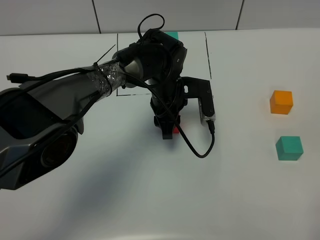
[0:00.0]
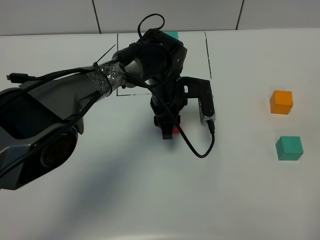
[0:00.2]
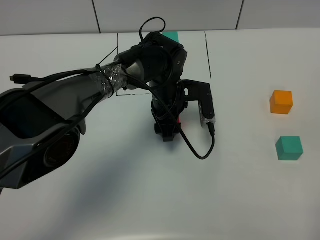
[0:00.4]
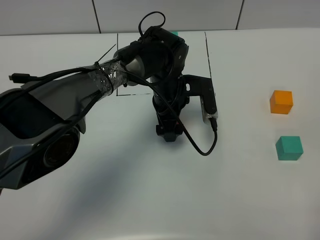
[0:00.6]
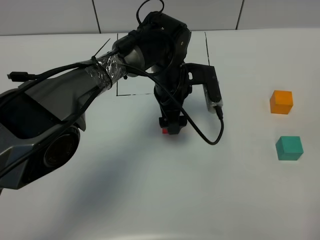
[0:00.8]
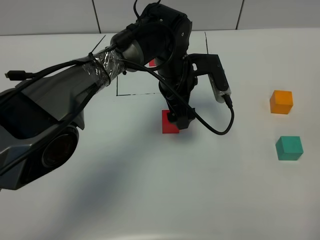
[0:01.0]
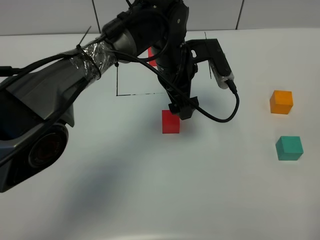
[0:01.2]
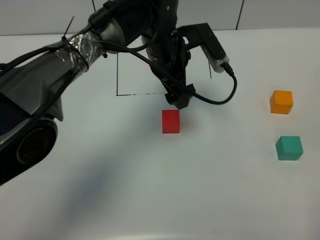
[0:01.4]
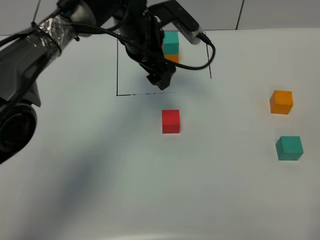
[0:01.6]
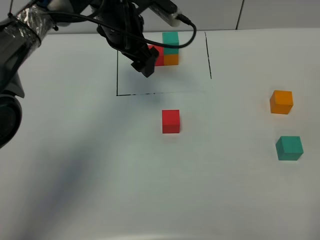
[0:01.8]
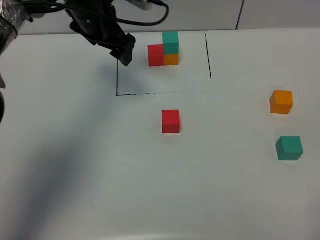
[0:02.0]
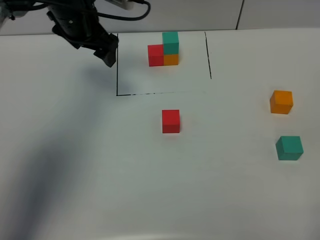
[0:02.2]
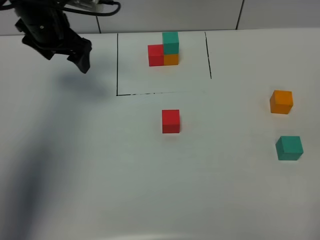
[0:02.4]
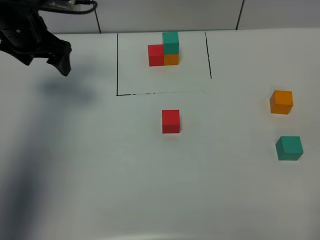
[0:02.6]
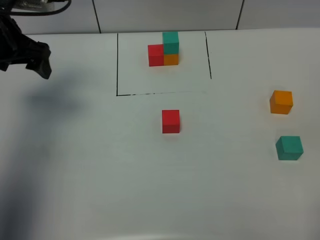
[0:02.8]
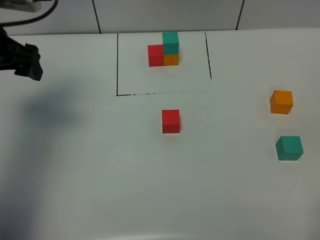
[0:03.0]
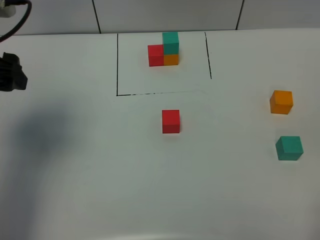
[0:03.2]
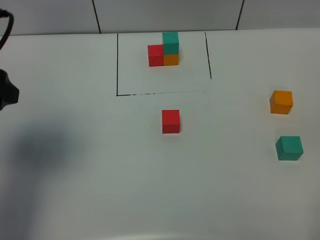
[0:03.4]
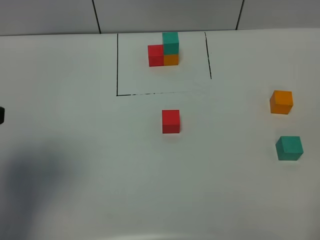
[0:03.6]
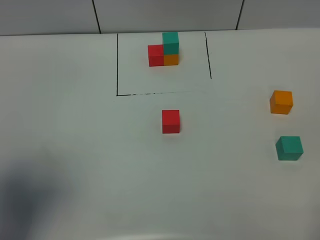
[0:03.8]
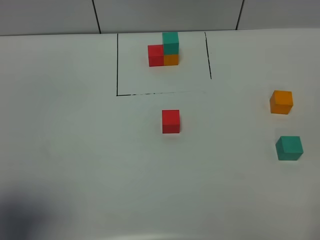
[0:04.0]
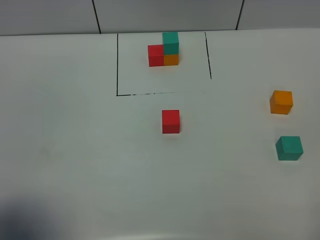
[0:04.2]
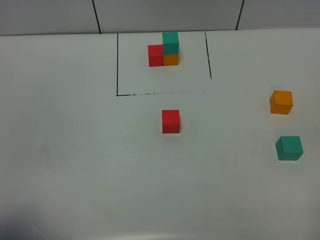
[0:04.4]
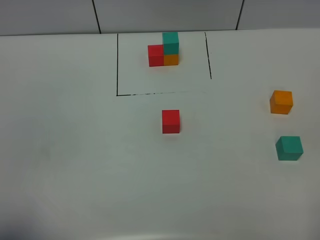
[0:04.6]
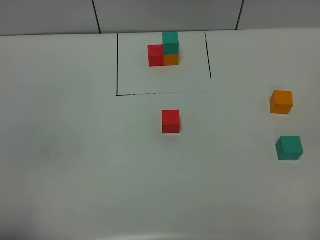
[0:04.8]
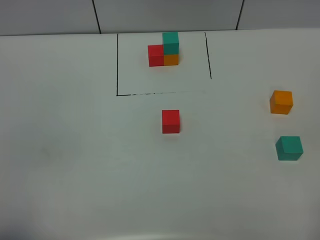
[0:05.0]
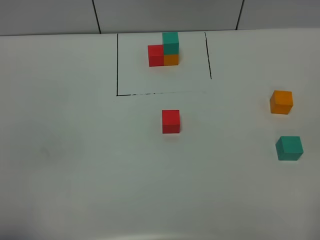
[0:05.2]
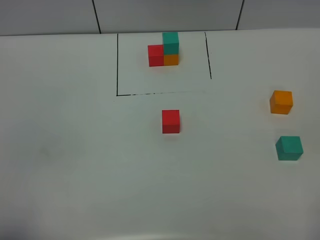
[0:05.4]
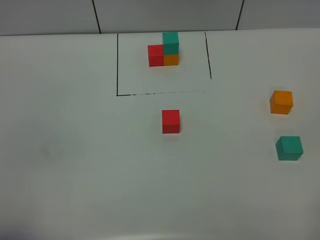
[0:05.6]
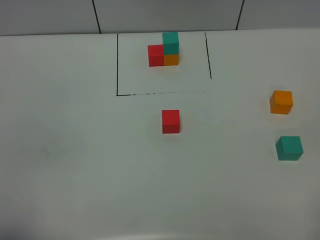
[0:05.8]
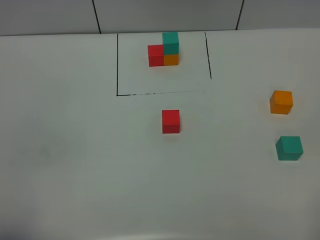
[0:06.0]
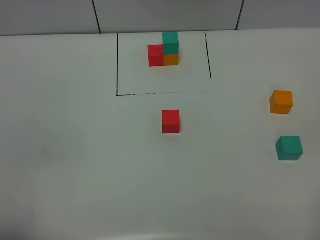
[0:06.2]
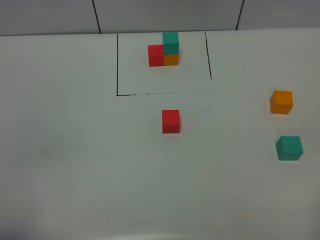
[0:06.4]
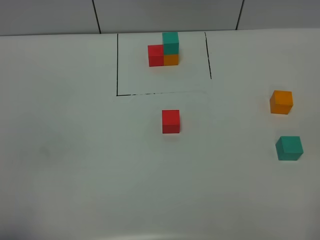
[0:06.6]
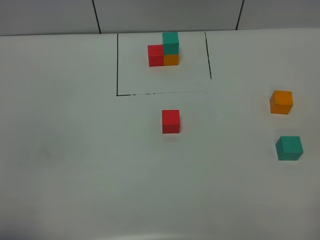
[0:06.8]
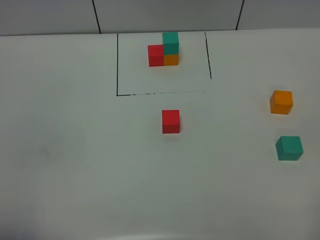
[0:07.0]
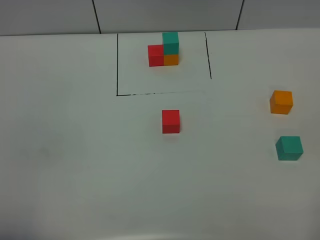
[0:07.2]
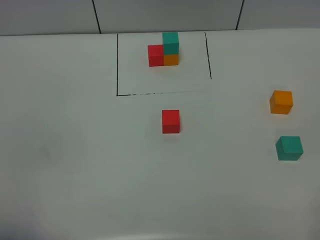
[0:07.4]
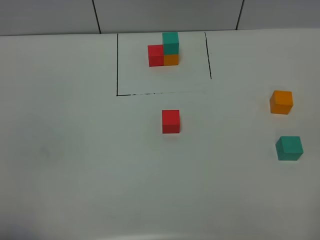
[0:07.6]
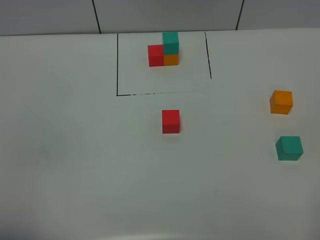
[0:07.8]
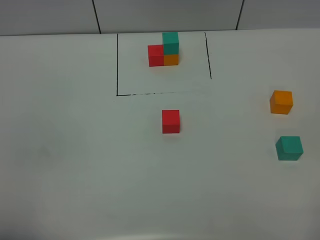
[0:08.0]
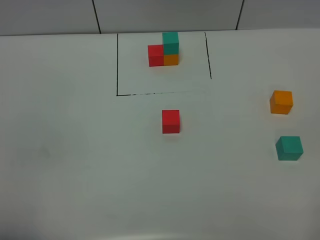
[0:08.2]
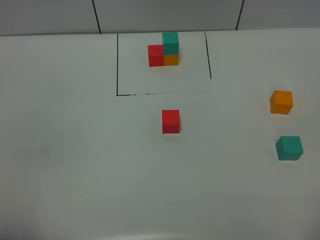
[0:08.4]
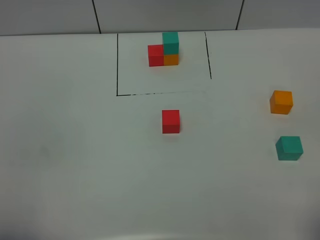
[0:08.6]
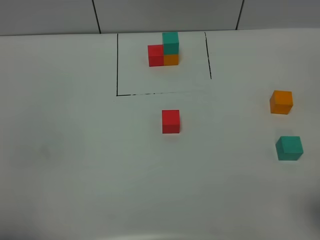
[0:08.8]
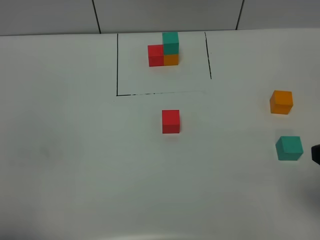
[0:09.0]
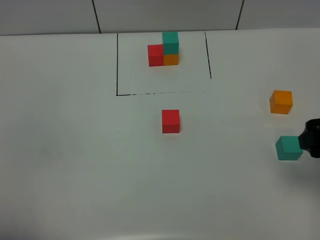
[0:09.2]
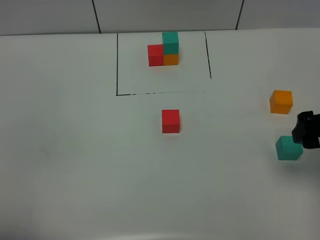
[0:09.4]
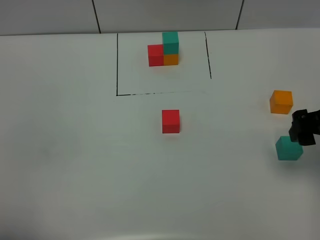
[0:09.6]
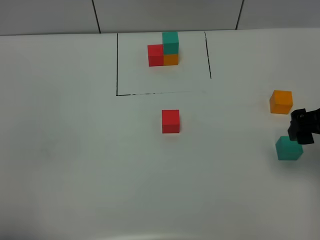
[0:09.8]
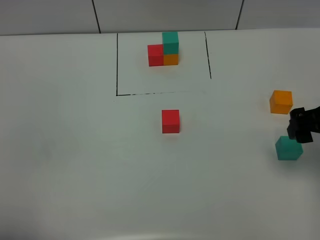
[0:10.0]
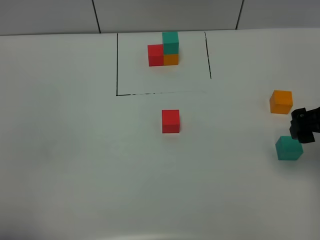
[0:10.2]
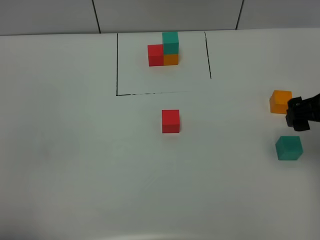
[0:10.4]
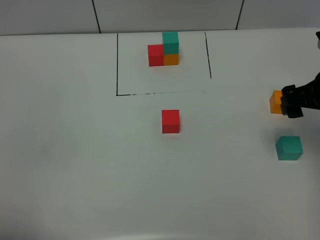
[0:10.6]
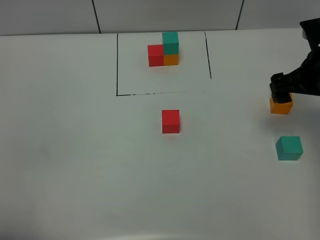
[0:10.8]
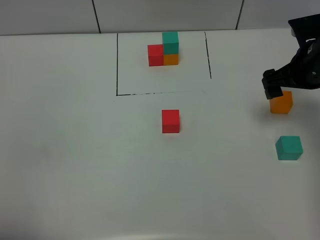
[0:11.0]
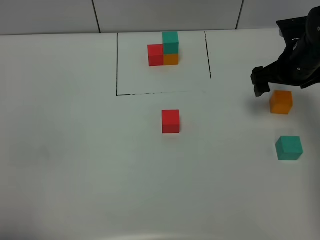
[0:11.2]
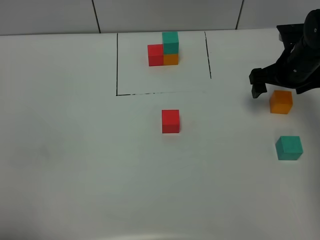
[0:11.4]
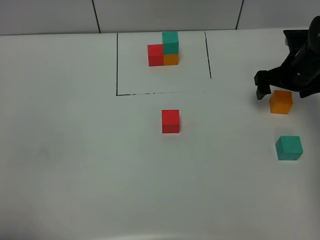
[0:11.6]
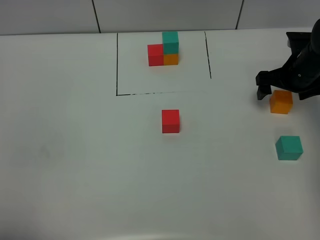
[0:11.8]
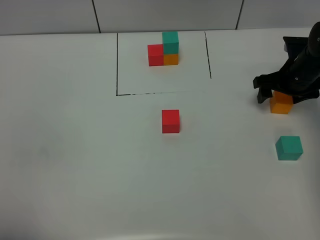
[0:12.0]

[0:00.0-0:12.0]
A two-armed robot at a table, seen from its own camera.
Task of the whole recording: According to the building block template in front, assemble the scattered blocks together.
0:00.0 to 0:01.6: The left gripper shifts roughly 15 cm upward and to the left, and opens its fingers.
0:01.6 to 0:03.0: The left gripper goes roughly 25 cm to the left and backward.
0:03.0 to 0:04.4: The left gripper goes about 30 cm backward.
0:07.6 to 0:09.0: The right gripper heads forward, covering roughly 15 cm.
0:09.0 to 0:10.4: The right gripper heads forward, covering about 10 cm.
0:10.4 to 0:12.0: The right gripper shifts roughly 20 cm forward and downward, and closes.

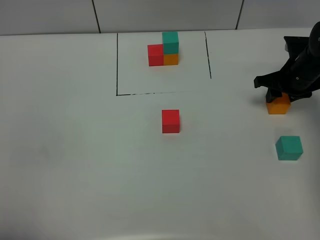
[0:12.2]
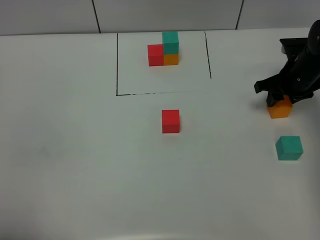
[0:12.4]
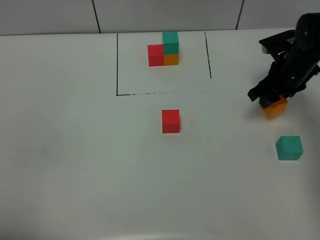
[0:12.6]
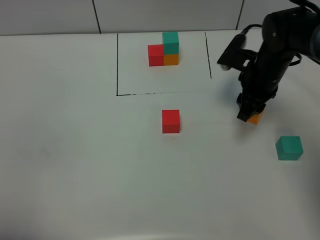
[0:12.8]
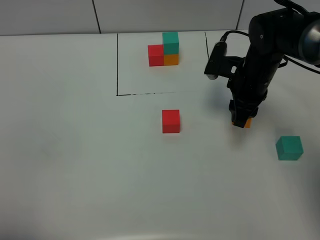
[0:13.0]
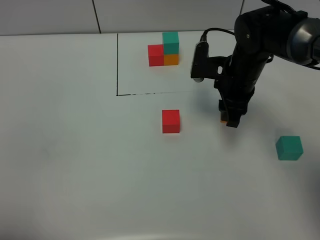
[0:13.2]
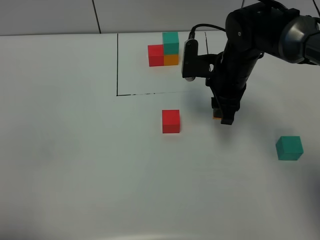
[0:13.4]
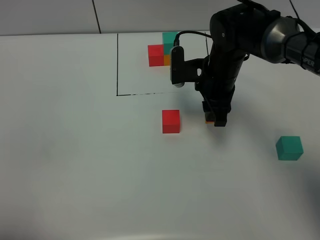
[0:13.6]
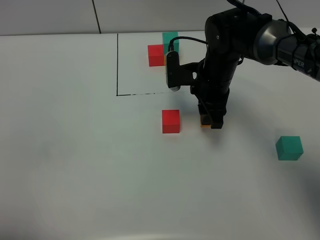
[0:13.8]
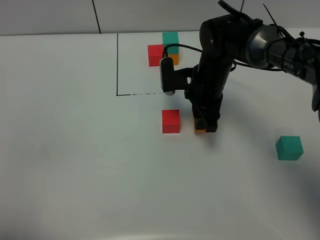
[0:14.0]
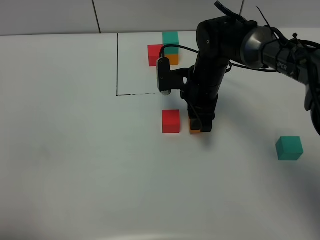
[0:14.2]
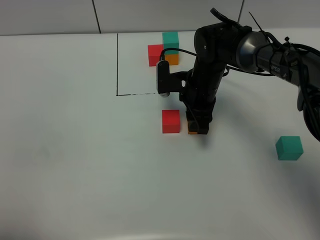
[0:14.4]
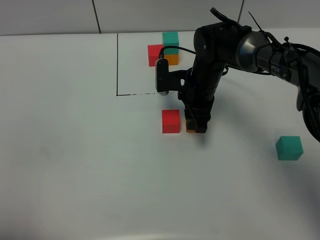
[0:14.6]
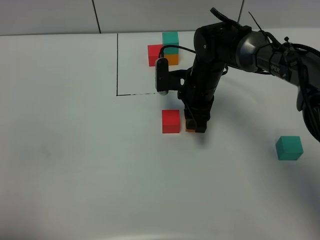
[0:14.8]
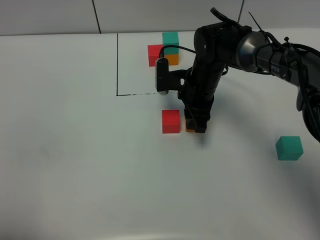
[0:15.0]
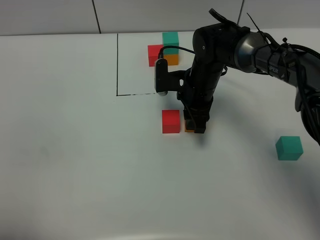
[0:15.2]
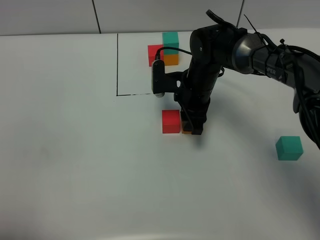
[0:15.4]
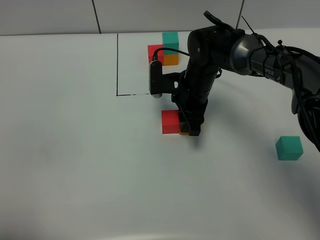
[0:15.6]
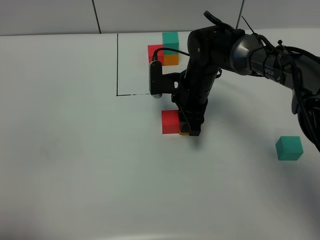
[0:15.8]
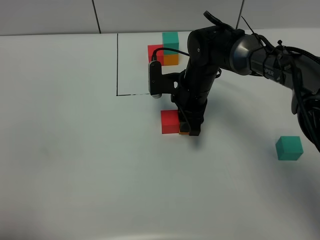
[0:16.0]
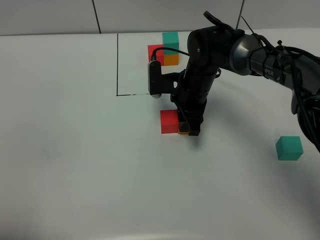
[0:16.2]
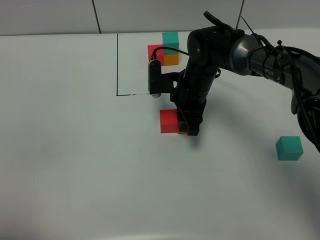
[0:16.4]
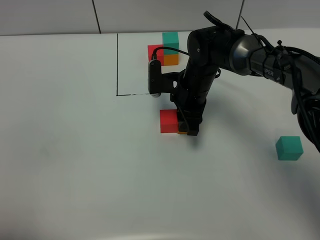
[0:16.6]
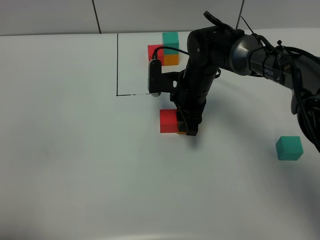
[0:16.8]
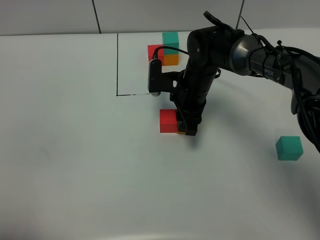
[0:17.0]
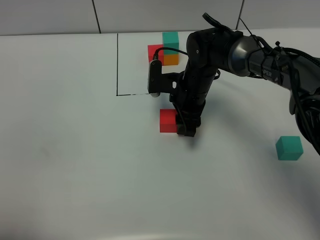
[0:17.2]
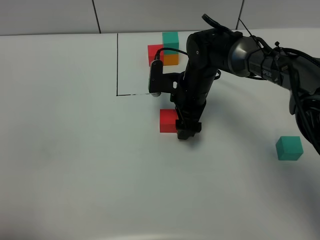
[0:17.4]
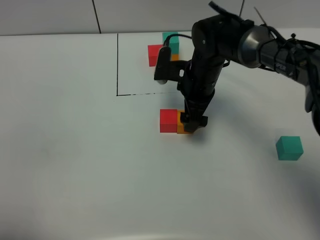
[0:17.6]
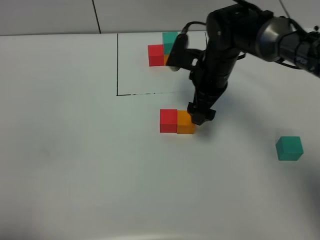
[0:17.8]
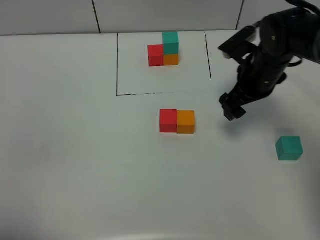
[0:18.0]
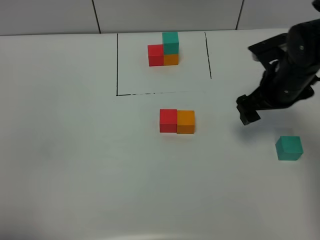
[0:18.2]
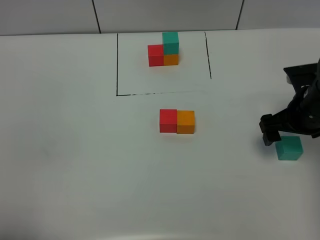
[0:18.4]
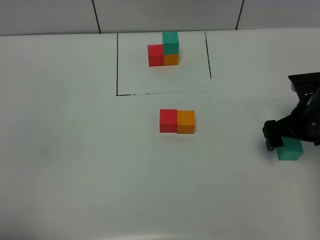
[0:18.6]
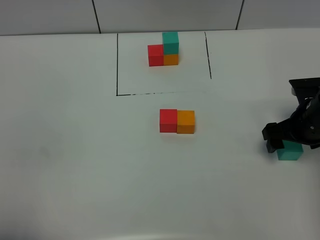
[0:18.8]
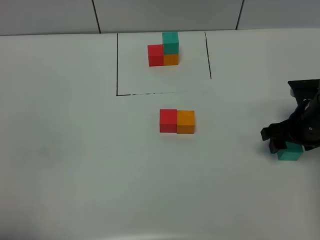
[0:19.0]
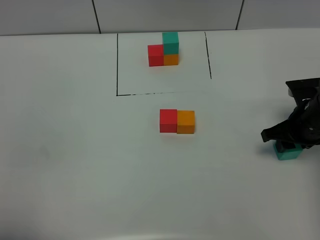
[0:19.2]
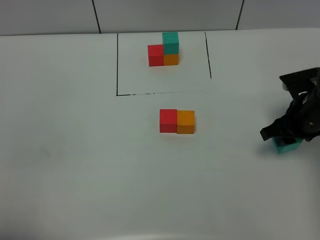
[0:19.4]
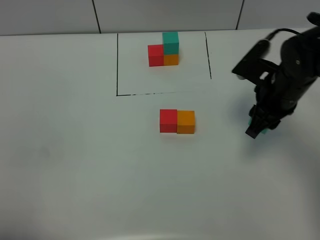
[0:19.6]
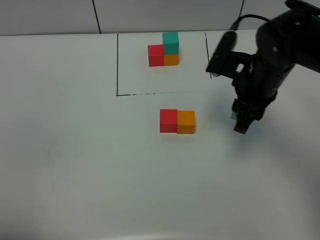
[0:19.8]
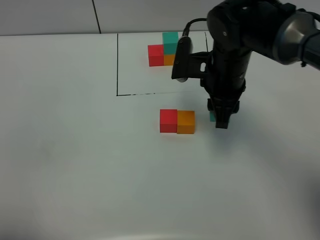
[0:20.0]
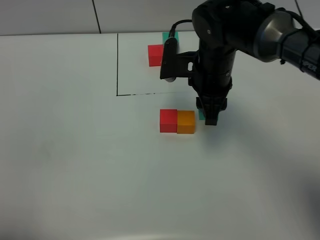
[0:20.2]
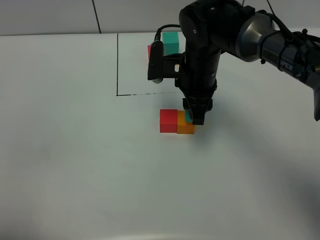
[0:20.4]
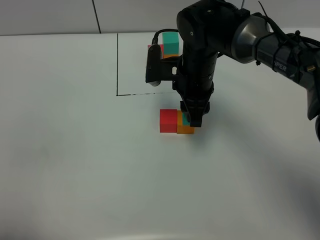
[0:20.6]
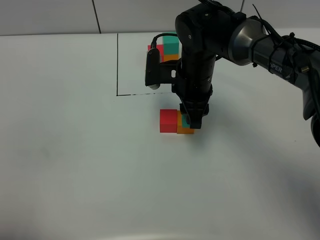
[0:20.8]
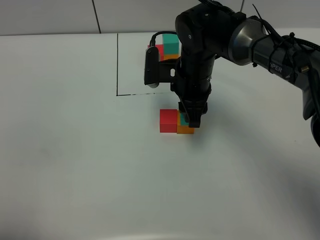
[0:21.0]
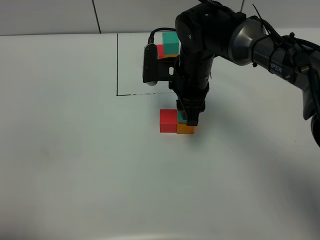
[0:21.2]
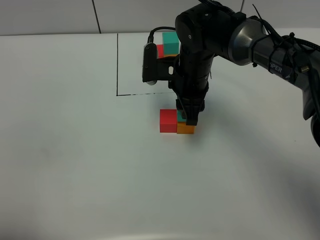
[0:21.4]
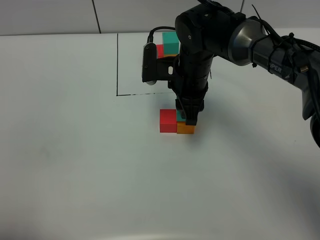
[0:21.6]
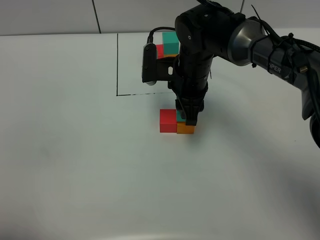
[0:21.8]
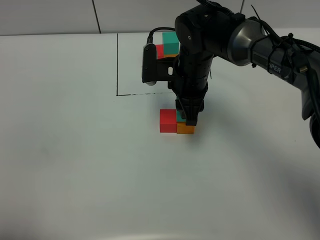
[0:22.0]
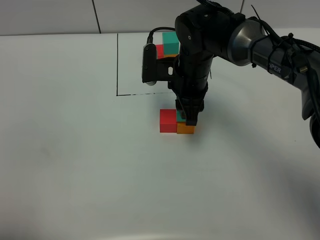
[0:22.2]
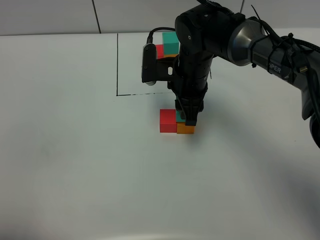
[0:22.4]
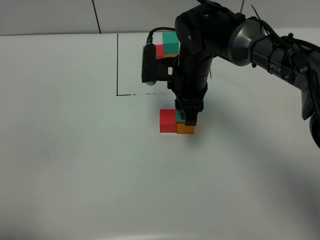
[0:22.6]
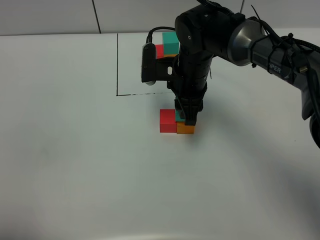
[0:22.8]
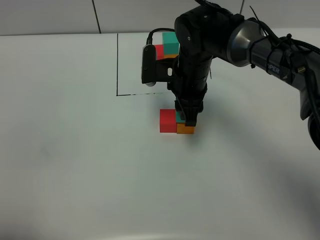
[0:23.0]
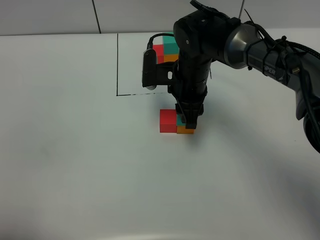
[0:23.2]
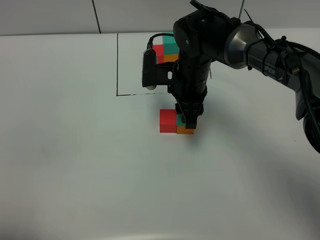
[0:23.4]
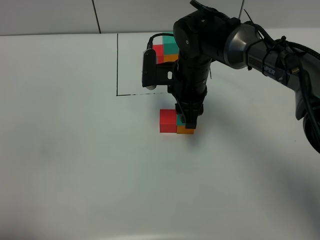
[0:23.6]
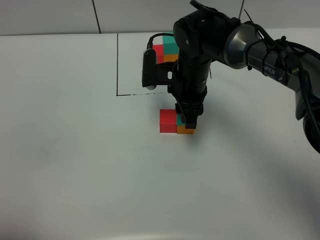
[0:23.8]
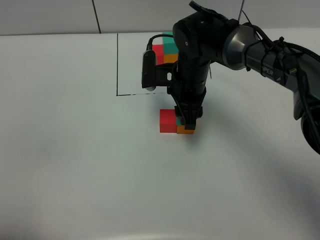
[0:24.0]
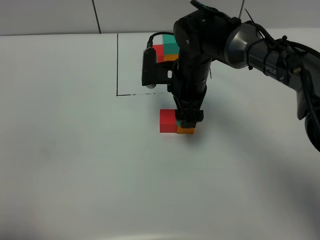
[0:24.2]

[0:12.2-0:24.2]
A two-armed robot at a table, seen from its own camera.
Task of the whole recording: According to the building block template in front, assemble the scattered blocks together.
Step, 0:12.2 to 0:17.4: Put the orange build block on the right of the red build block.
Step, 0:17.6 to 0:24.0: Put the green build block on the orange build block.
0:12.2 to 0:13.8: The right gripper moves to the left, some 20 cm.
0:13.8 to 0:15.2: The grippers make only small movements.
0:15.2 to 0:16.6: Both grippers stay about where they are.
0:16.6 to 0:18.2: The right gripper shifts about 15 cm to the right and backward, and opens up.
0:18.2 to 0:19.8: The right gripper moves to the left, approximately 10 cm, and closes its fingers.
0:19.8 to 0:21.2: The right gripper shifts roughly 10 cm to the left and forward.
0:21.2 to 0:22.6: Neither gripper changes place.
0:22.6 to 0:24.2: The right gripper opens up.
